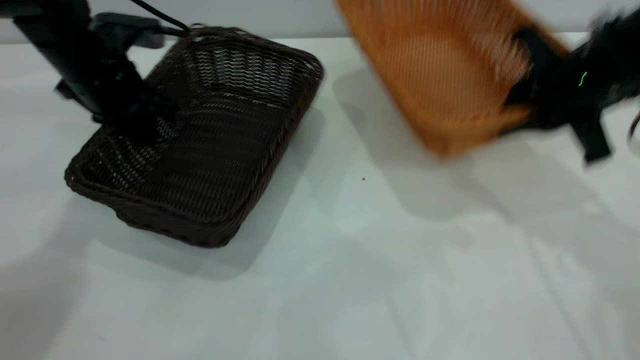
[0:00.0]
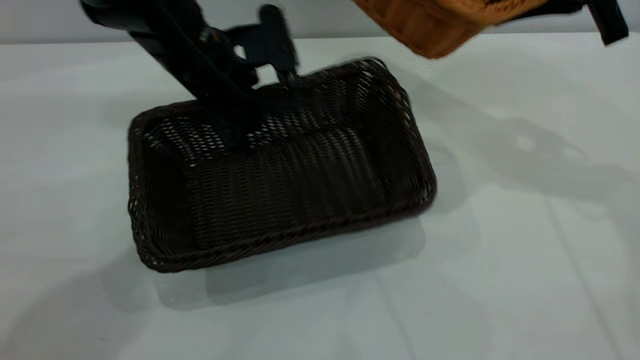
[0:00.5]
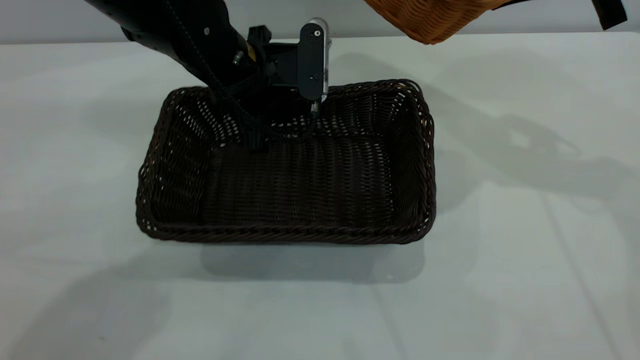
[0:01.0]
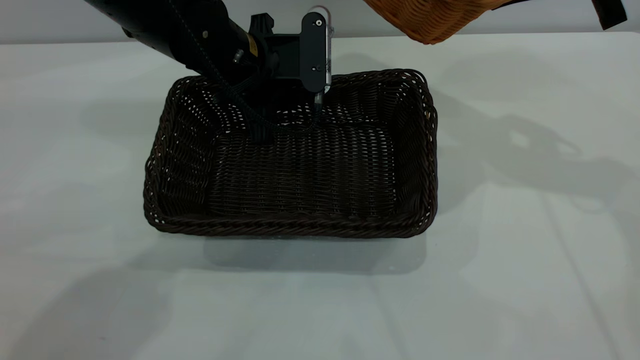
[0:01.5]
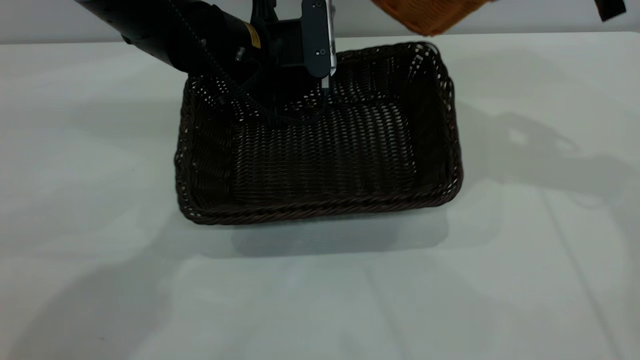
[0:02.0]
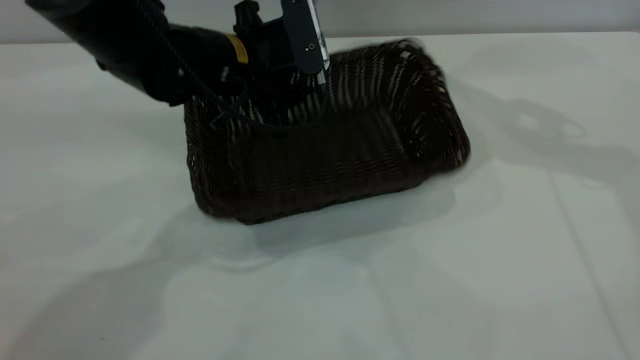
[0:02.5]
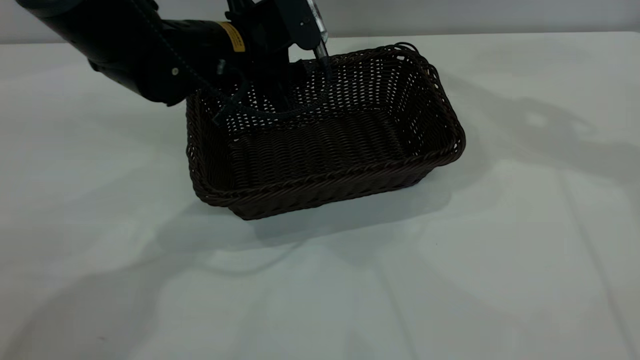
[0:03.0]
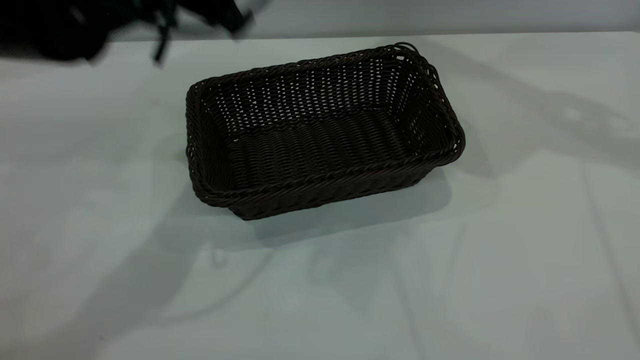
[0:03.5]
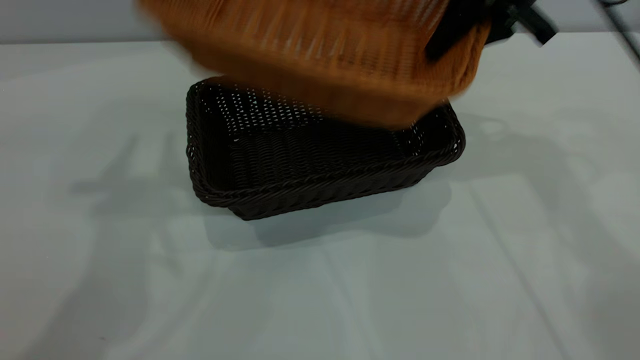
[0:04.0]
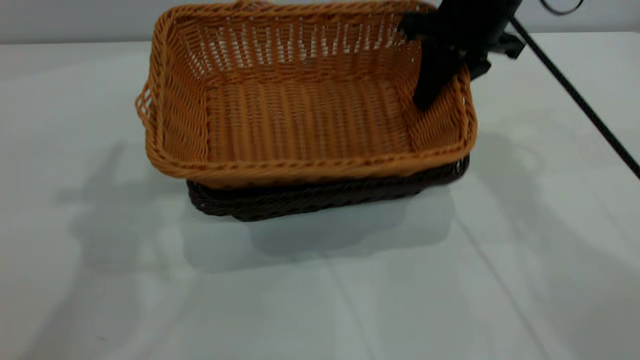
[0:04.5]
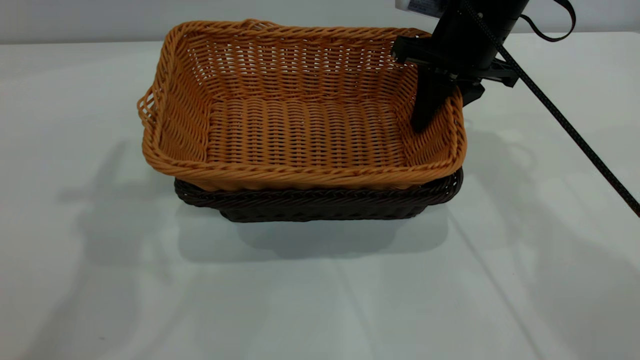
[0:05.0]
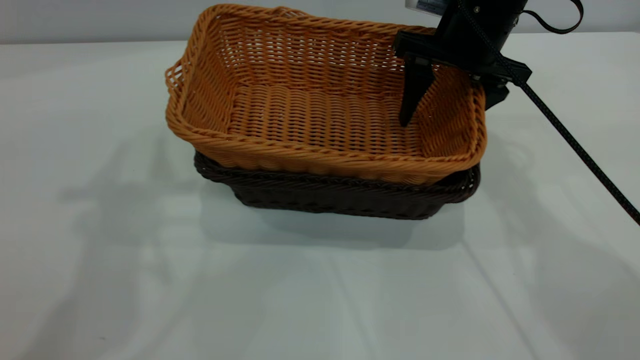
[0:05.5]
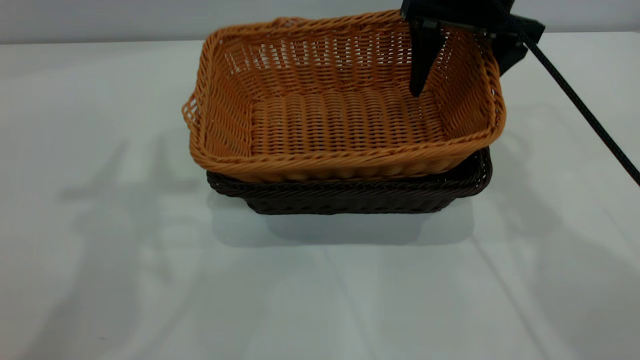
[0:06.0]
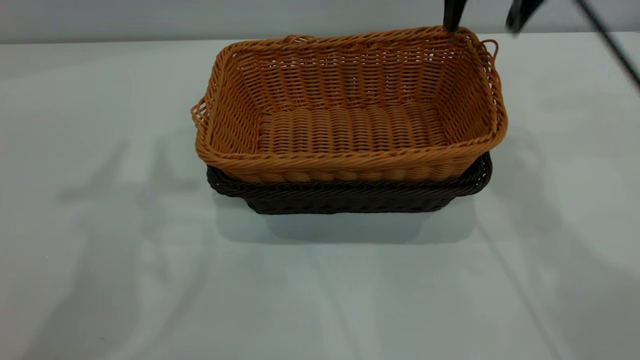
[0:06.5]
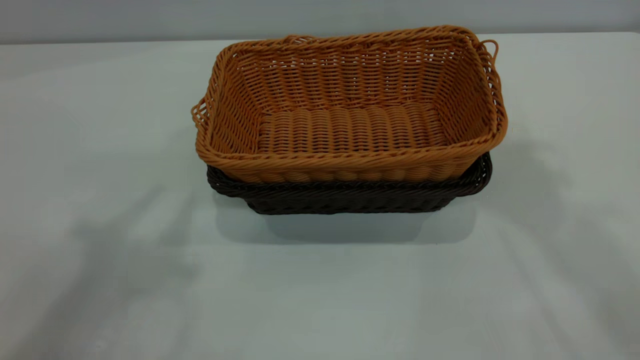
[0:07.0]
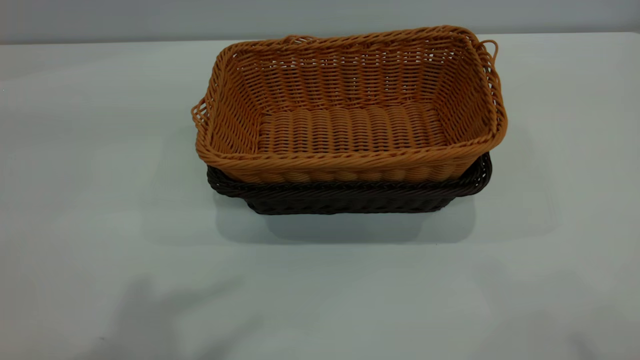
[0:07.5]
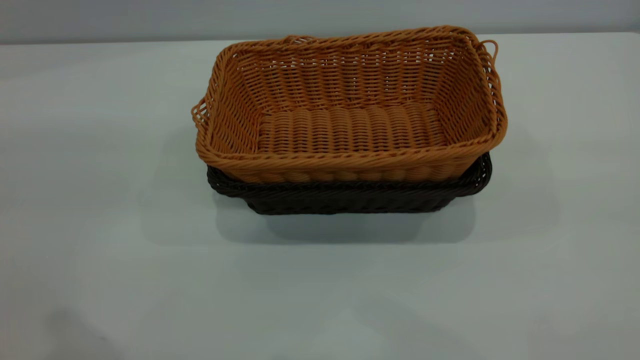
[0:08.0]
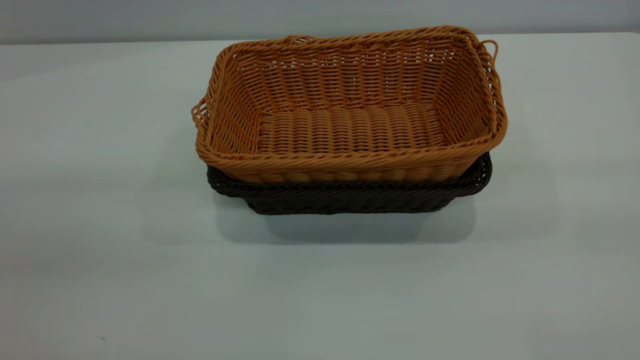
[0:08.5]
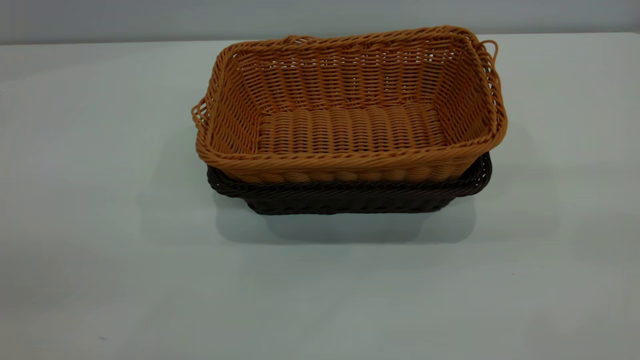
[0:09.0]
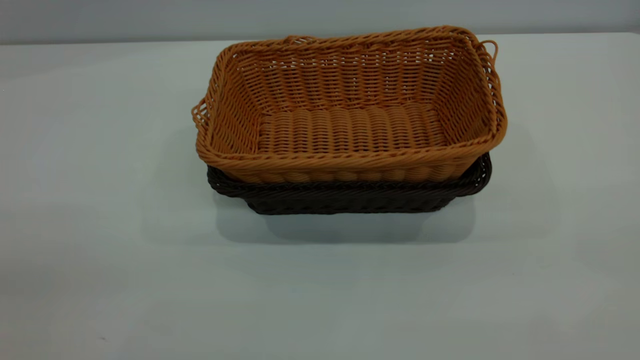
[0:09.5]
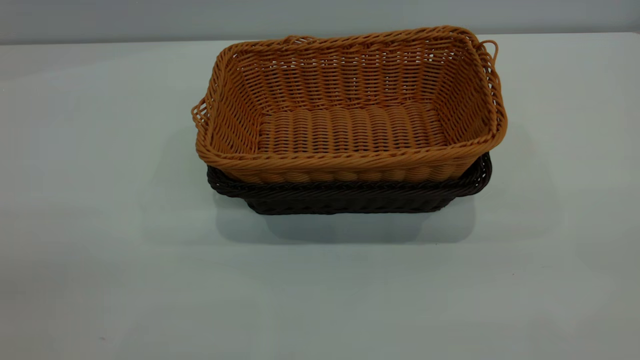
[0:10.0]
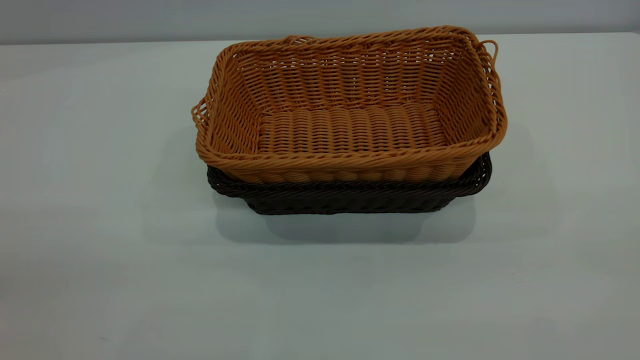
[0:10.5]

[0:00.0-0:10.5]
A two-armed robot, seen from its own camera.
Task of the whole recording: the left gripper grasp the black basket and place it in the center of the table, the right gripper grasp the brown basket and place it inside the black one.
Step, 0:00.0 to 0:03.0: Move the dark basket to the center of view.
Step, 0:03.5 to 0:06.0: Place the light basket on the dark basket.
0:00.0 to 0:02.0: The right gripper heads upward and forward, covering some 10 cm. The left gripper is displaced to the right by approximately 15 cm, and opens its fingers.
0:02.0 to 0:04.0: The right gripper shifts approximately 10 cm to the left. Meanwhile the left gripper goes some 30 cm upward, to the left and backward.
0:04.0 to 0:06.5: The right gripper is displaced upward by approximately 10 cm, and opens its fingers.
0:06.5 to 0:08.5: The right gripper is displaced backward by some 40 cm.
